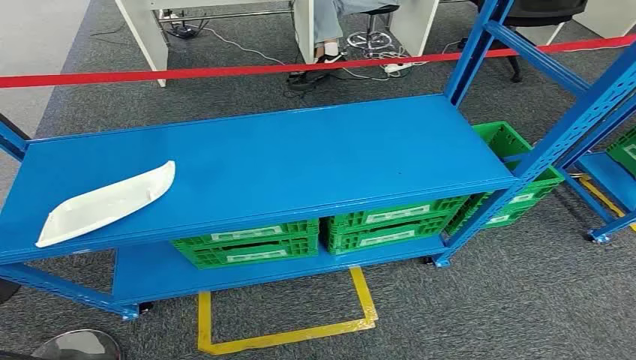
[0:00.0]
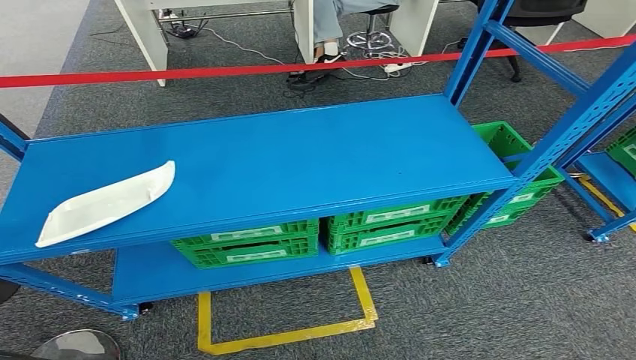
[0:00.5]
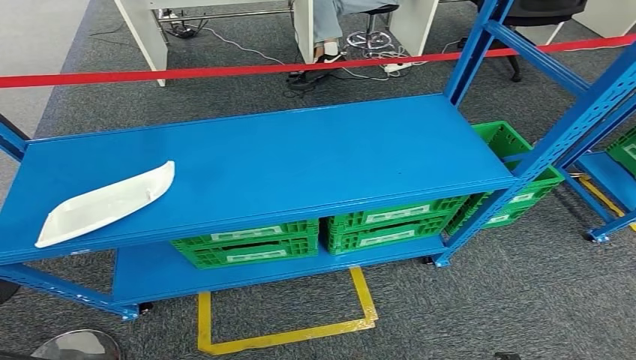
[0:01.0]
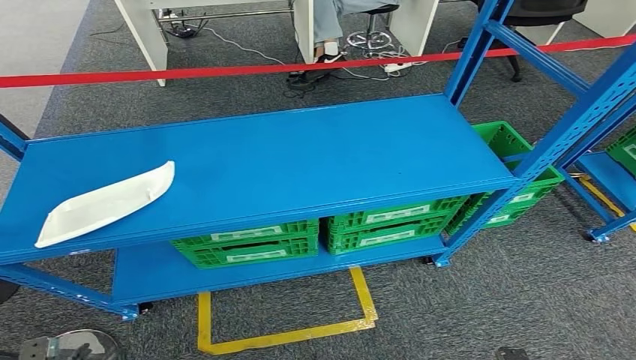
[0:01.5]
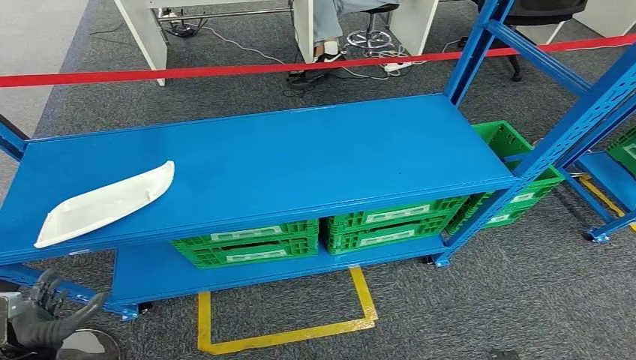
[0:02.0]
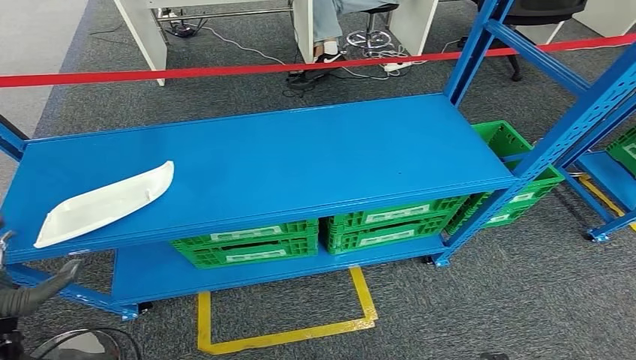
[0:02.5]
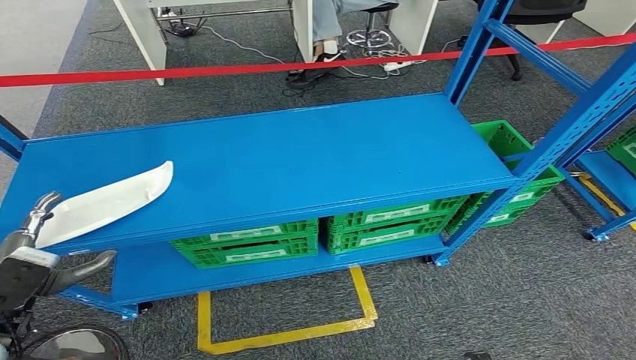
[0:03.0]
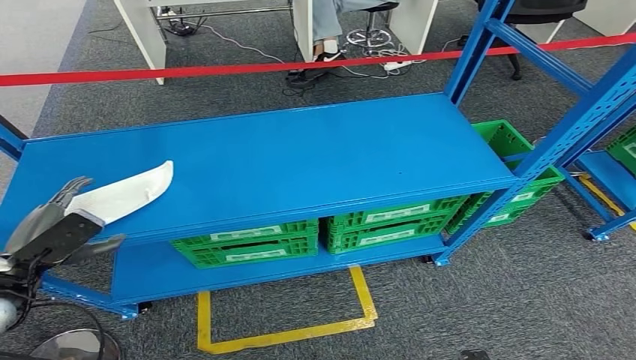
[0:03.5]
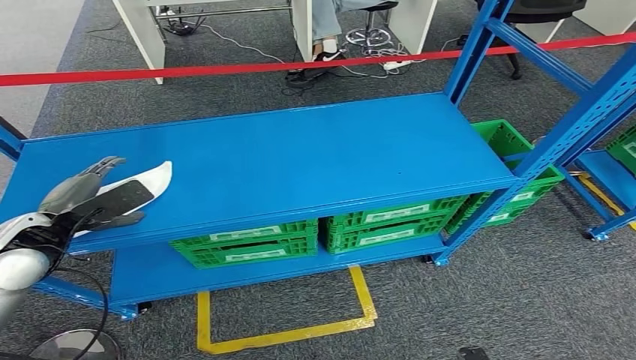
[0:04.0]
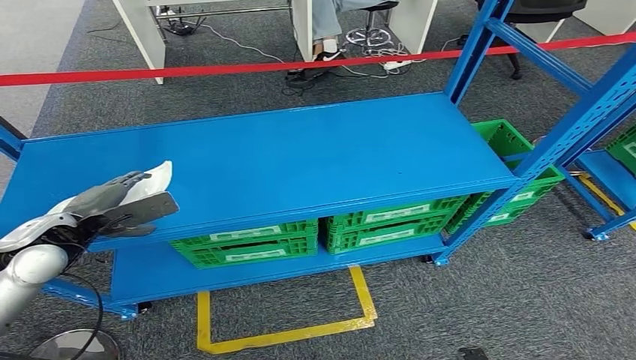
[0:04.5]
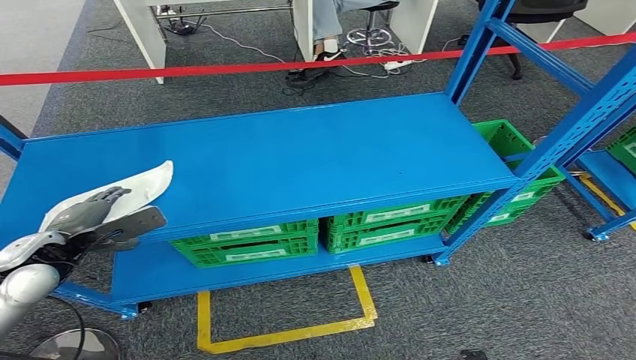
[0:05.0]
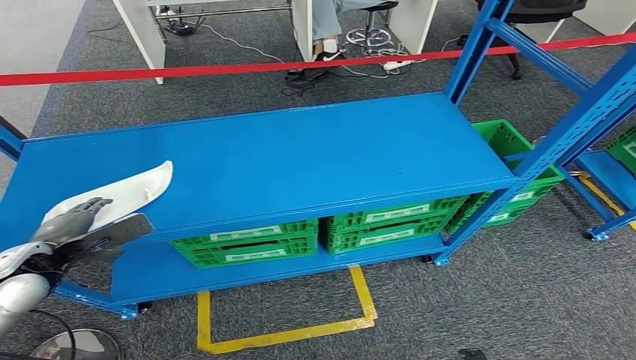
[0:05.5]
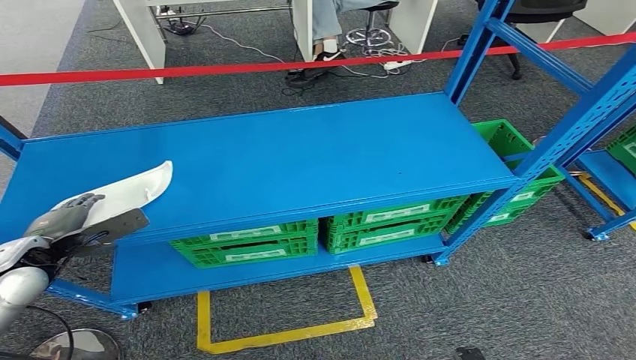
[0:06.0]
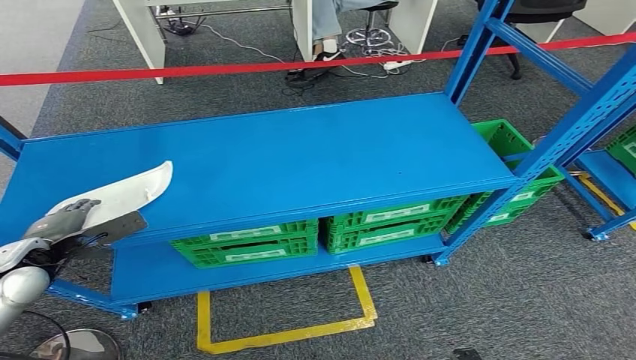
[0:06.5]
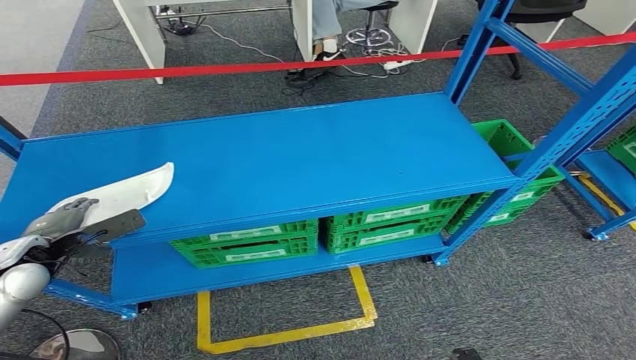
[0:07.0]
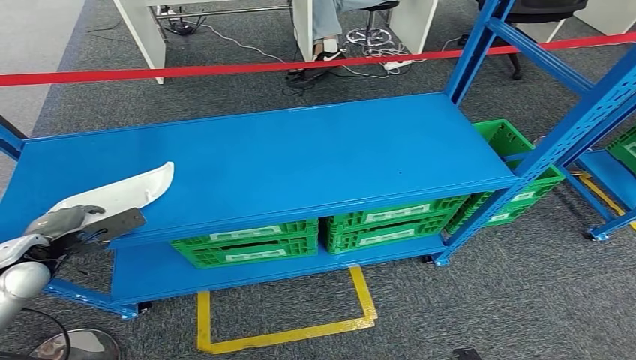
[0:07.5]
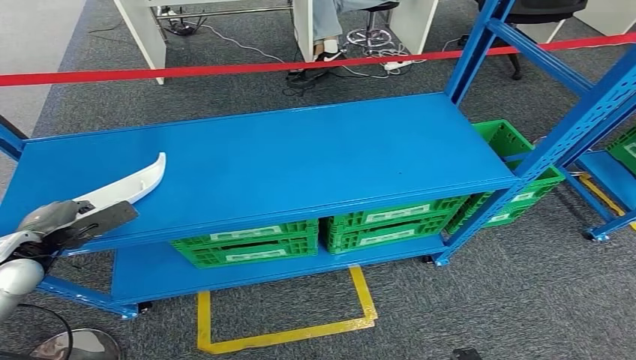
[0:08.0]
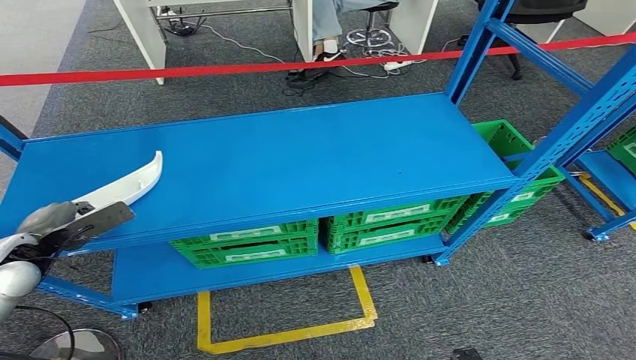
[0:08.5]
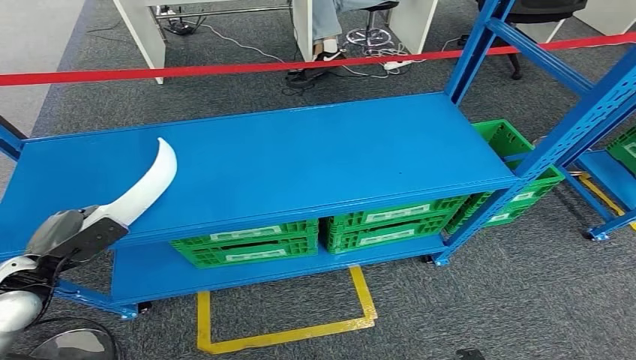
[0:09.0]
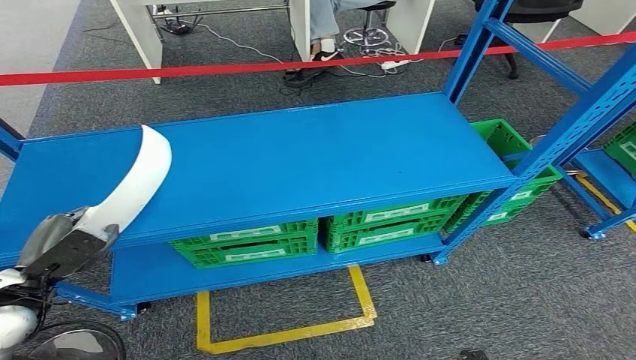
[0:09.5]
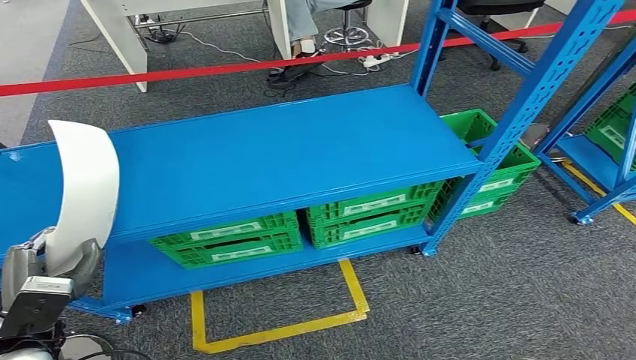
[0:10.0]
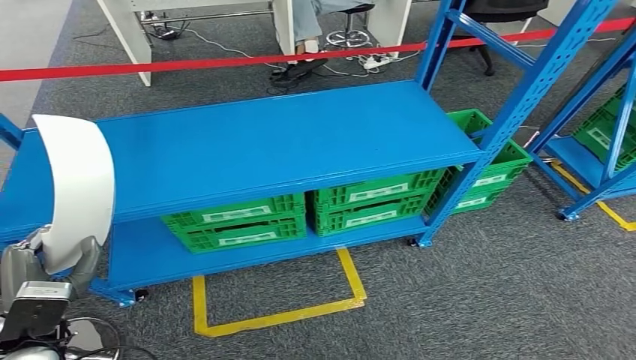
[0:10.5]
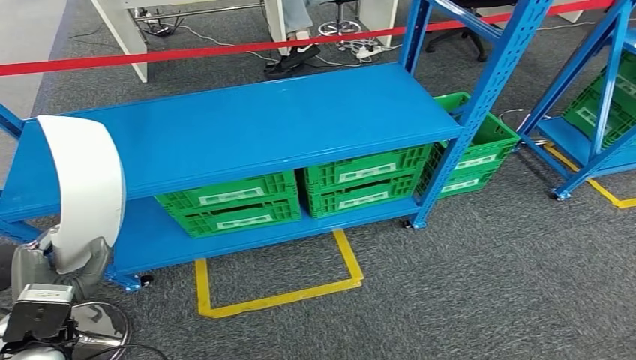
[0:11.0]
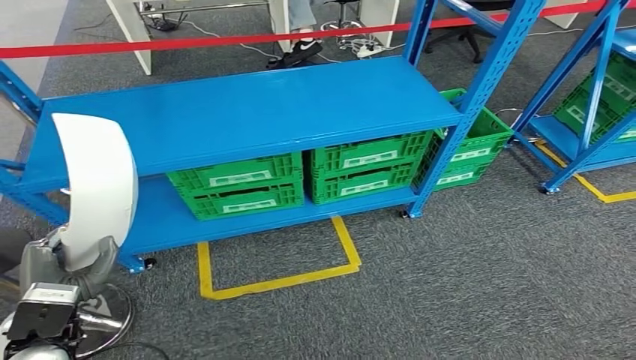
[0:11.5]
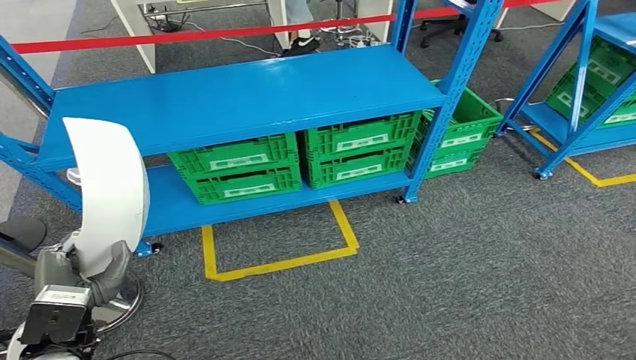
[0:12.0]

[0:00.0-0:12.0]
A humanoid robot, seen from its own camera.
Step, 0:00.0 to 0:12.0: Pick up the small component from the shelf.
0:02.0 to 0:04.0: The left hand goes some 25 cm forward and upward.
0:04.0 to 0:06.0: The left hand heads downward, covering some 5 cm.
0:06.0 to 0:08.0: There are only small adjustments of the hands.

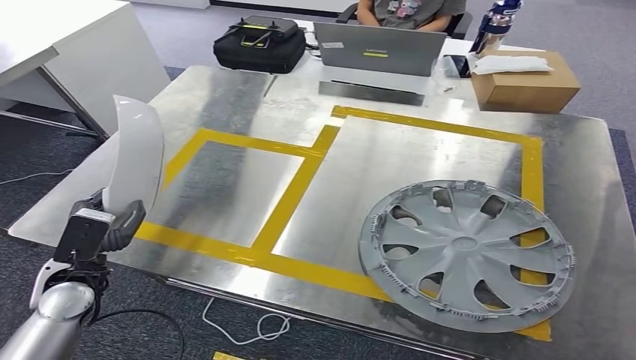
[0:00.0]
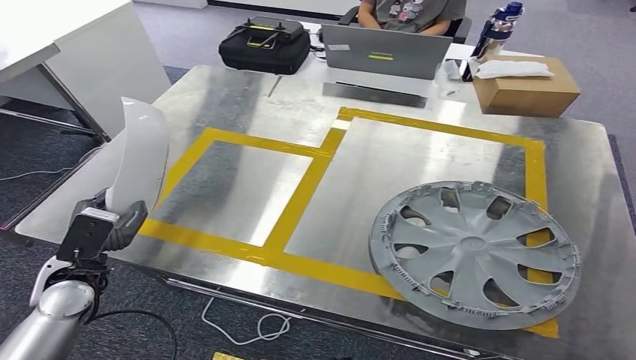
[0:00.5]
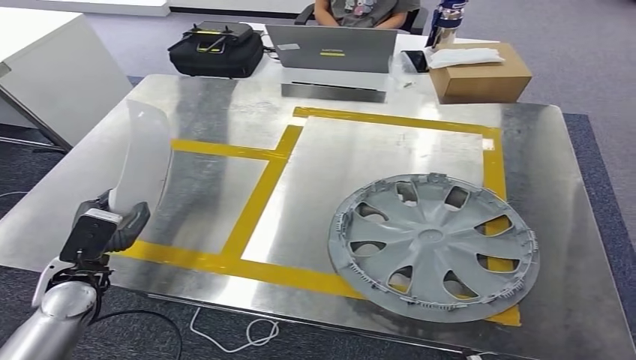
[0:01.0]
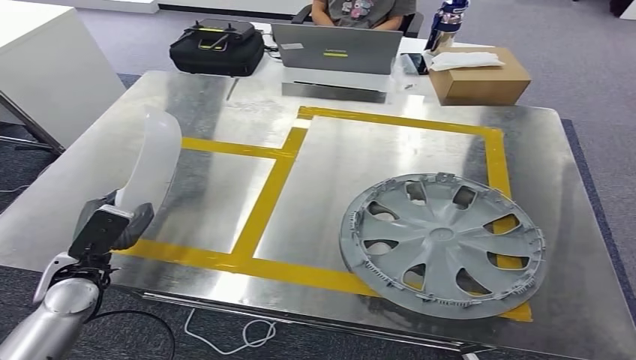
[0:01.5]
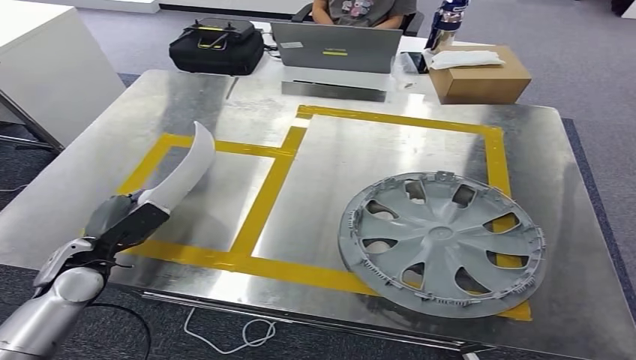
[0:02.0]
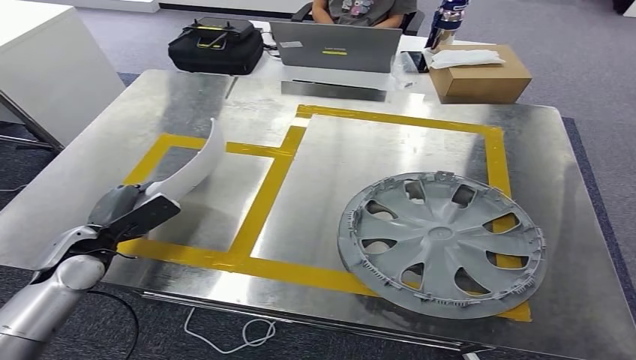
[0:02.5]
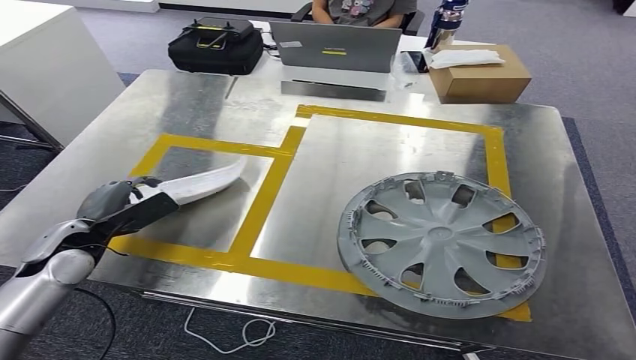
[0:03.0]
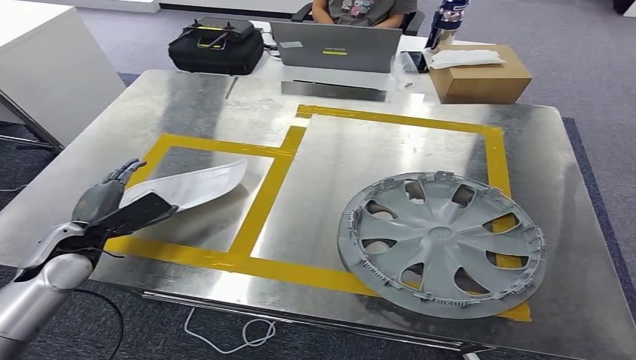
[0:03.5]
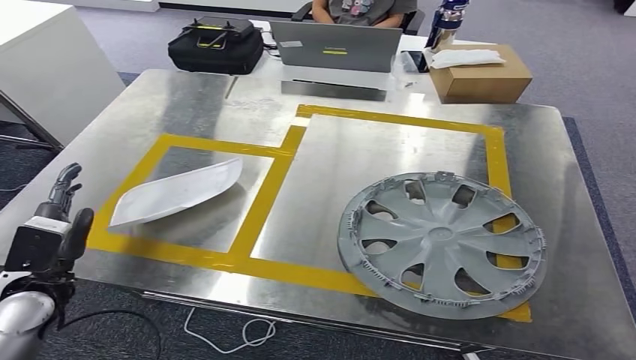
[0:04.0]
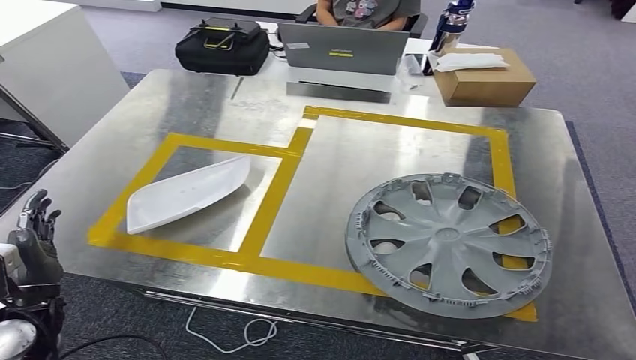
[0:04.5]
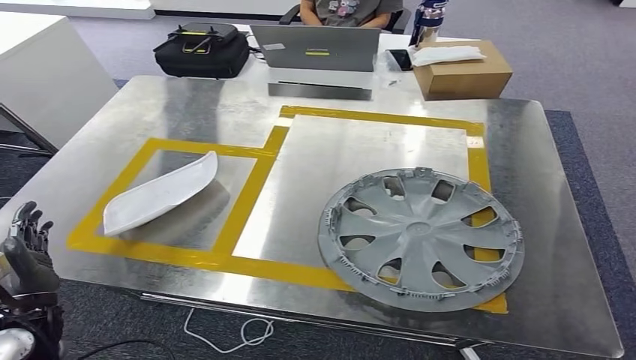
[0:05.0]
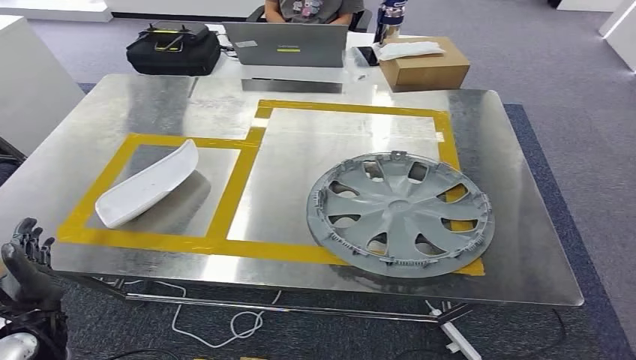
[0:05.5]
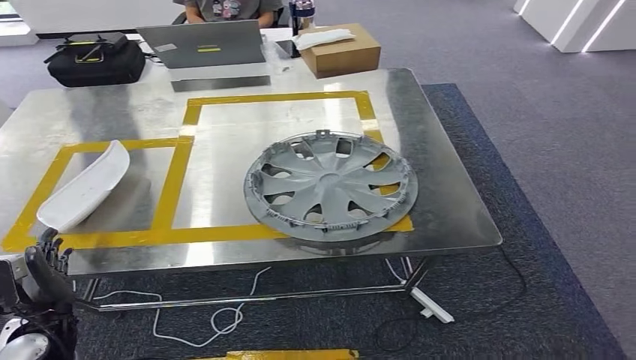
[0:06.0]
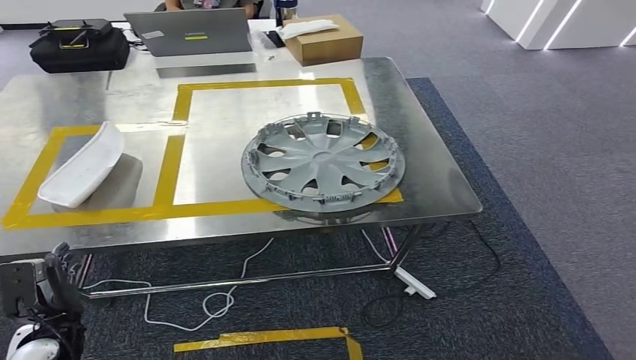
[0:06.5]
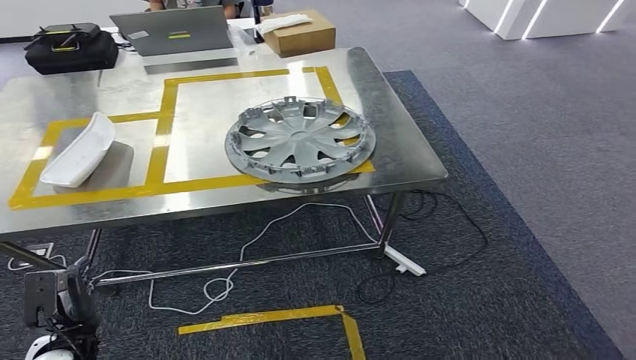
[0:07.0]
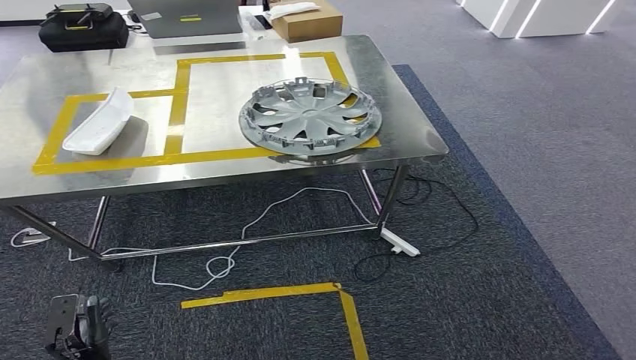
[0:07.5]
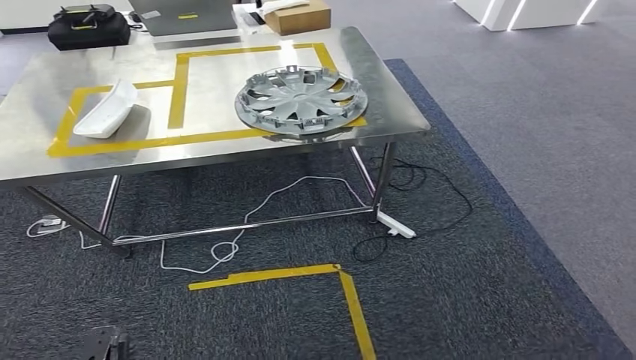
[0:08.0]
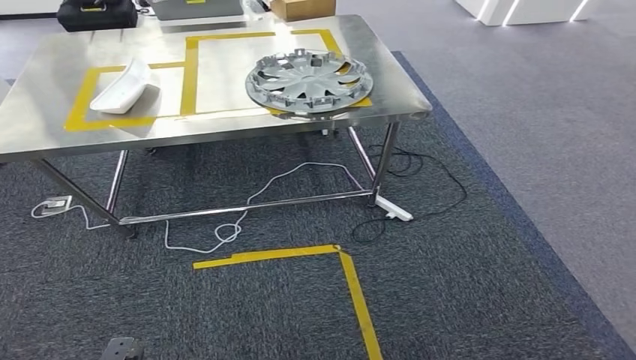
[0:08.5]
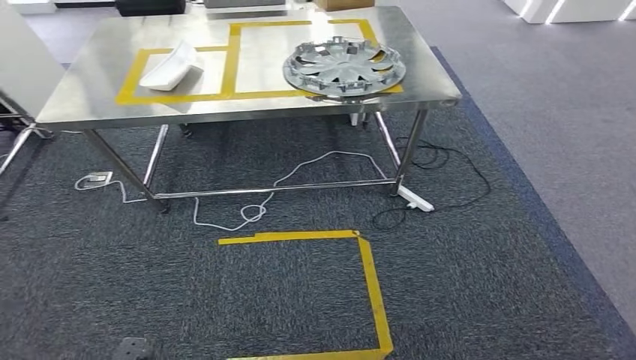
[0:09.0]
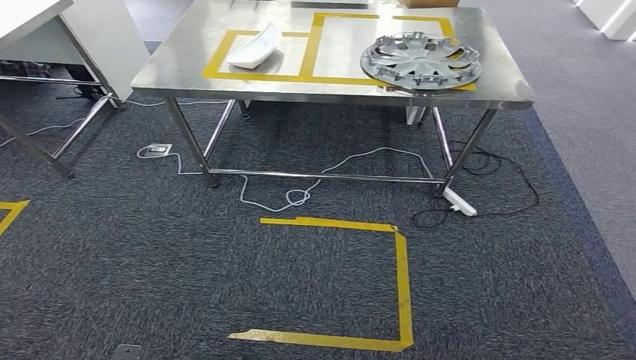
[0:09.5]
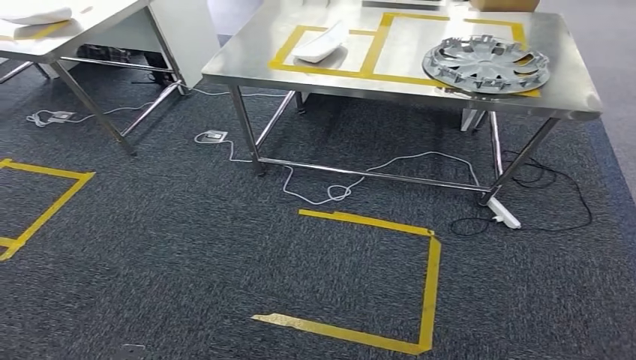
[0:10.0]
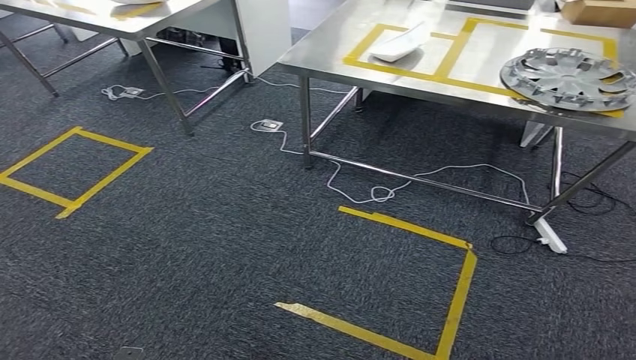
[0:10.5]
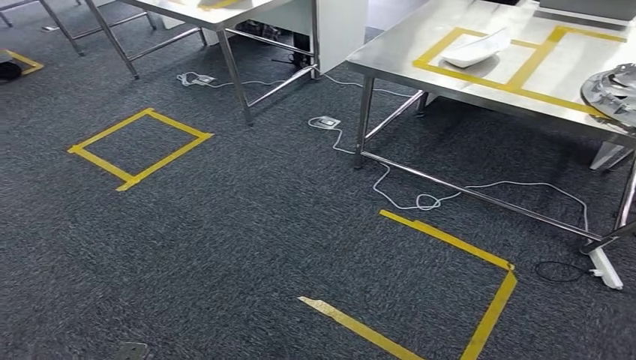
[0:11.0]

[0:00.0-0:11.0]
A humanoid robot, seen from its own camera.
0:02.0 to 0:03.5: The hands make only small movements.
